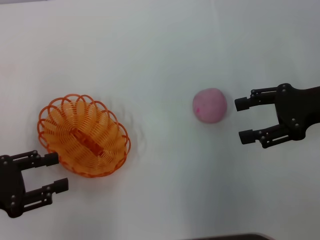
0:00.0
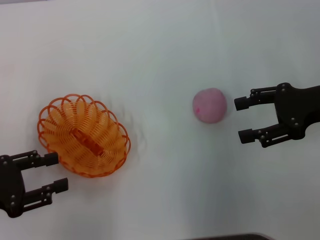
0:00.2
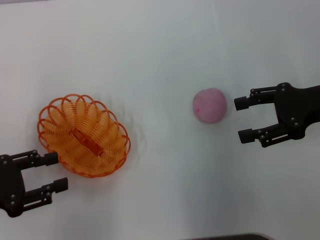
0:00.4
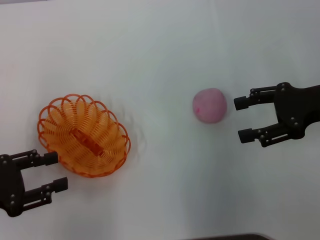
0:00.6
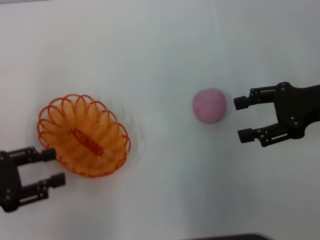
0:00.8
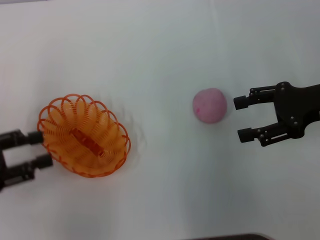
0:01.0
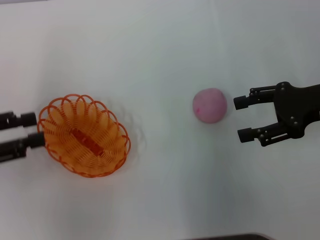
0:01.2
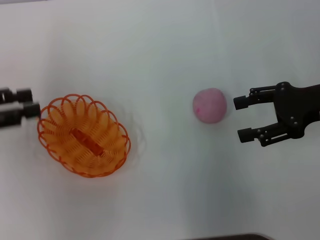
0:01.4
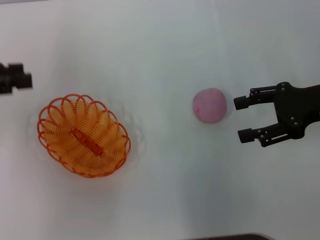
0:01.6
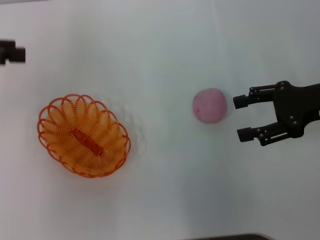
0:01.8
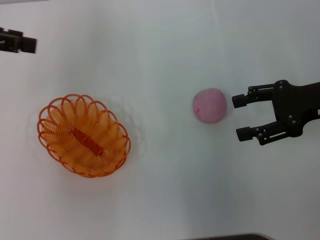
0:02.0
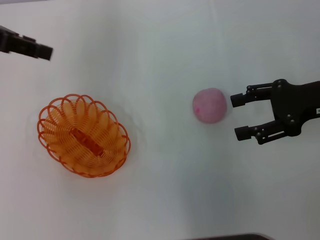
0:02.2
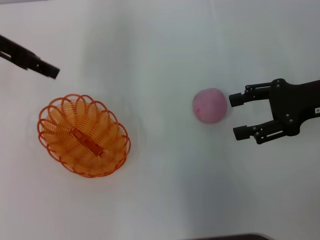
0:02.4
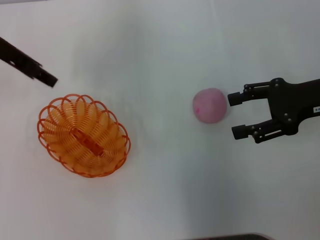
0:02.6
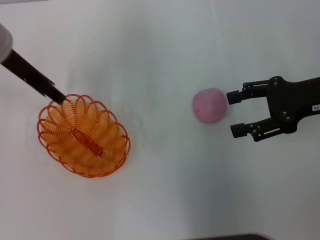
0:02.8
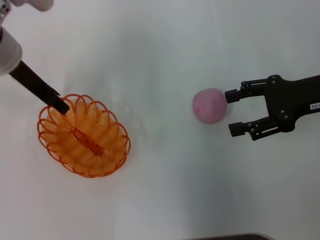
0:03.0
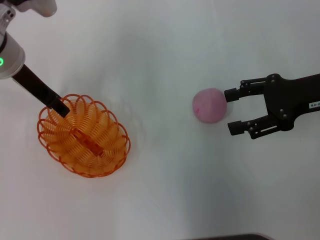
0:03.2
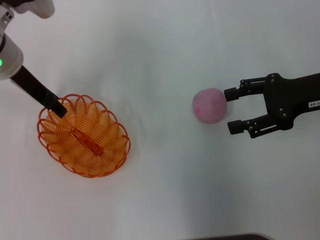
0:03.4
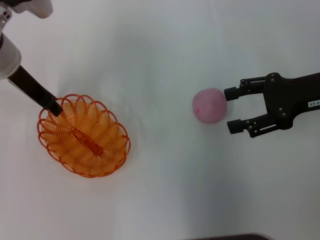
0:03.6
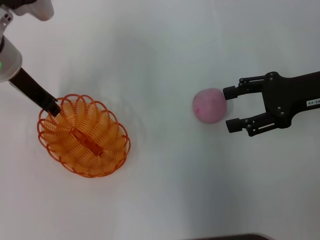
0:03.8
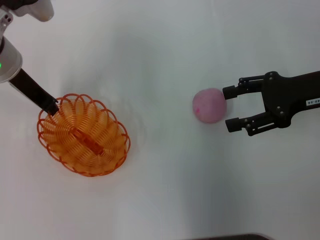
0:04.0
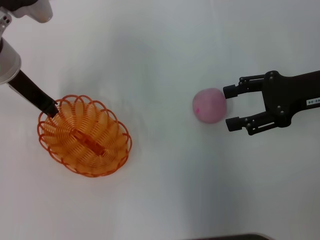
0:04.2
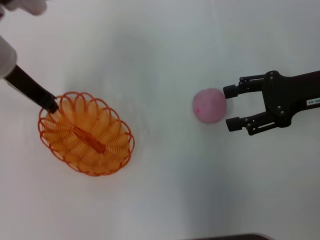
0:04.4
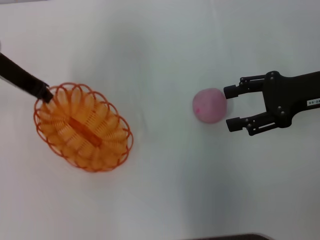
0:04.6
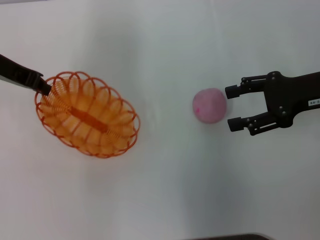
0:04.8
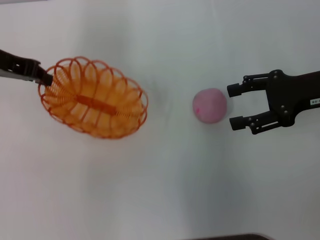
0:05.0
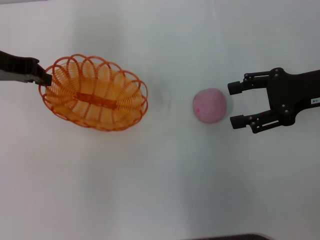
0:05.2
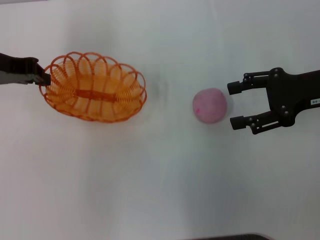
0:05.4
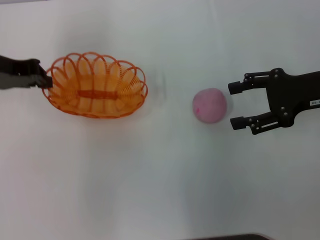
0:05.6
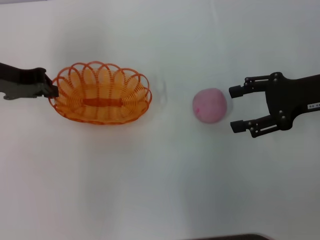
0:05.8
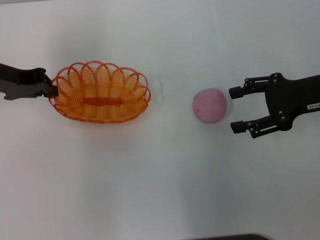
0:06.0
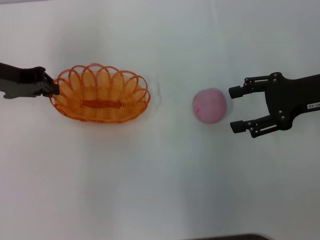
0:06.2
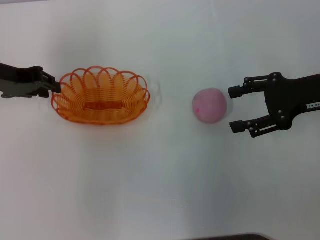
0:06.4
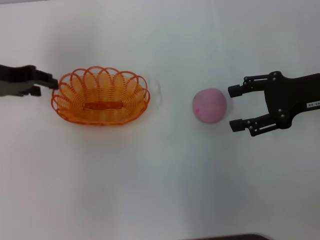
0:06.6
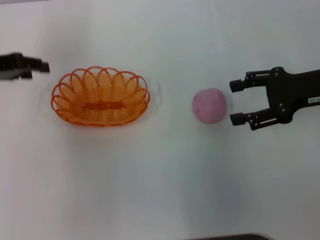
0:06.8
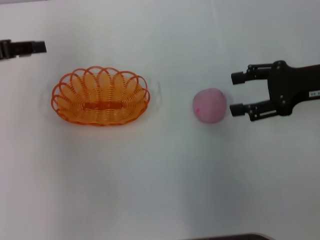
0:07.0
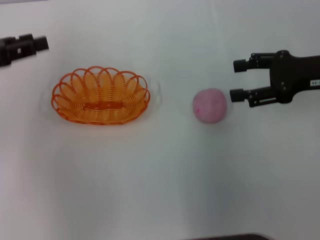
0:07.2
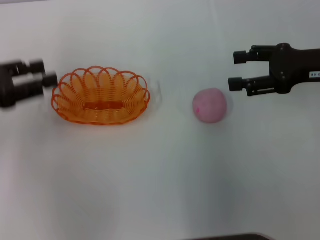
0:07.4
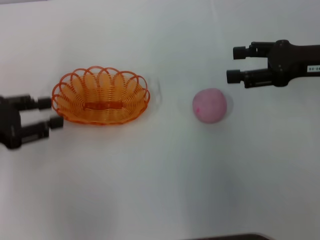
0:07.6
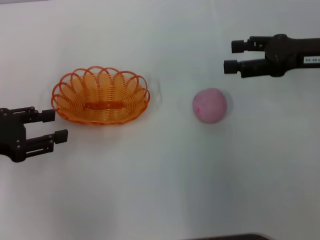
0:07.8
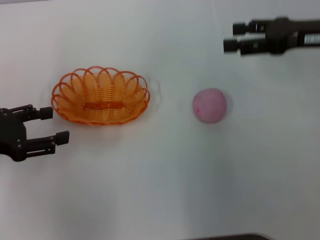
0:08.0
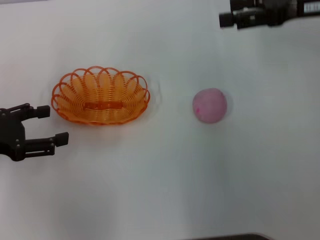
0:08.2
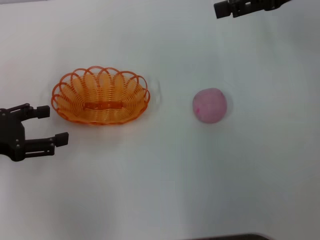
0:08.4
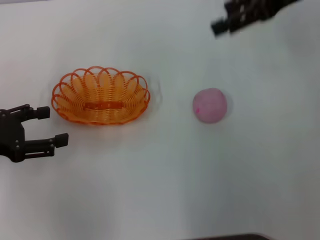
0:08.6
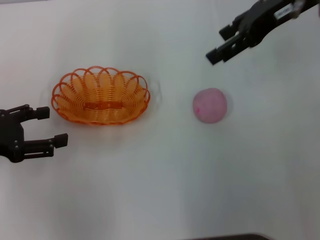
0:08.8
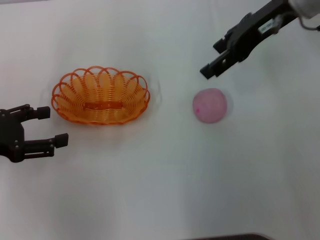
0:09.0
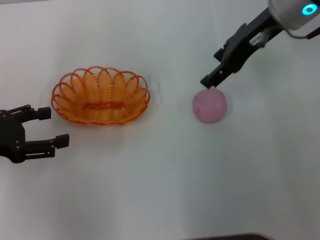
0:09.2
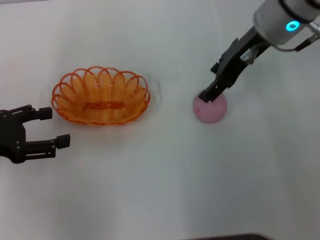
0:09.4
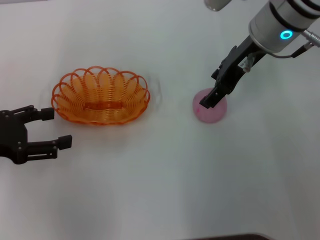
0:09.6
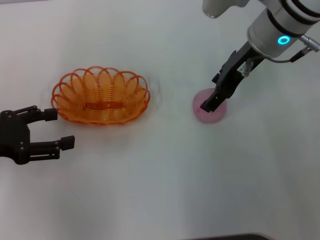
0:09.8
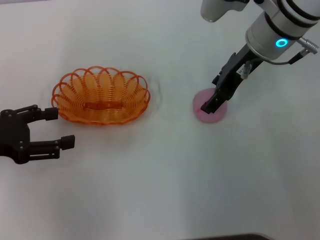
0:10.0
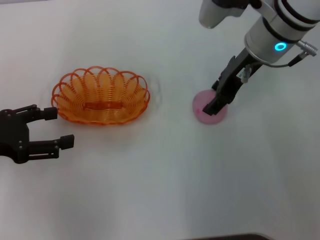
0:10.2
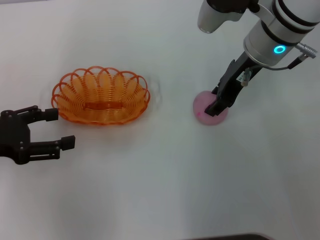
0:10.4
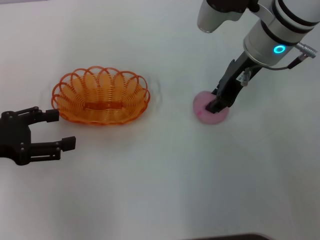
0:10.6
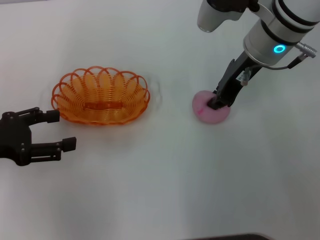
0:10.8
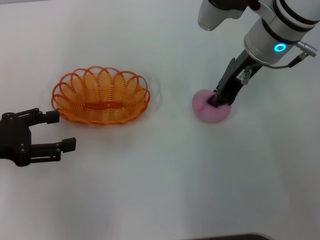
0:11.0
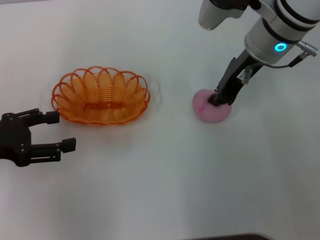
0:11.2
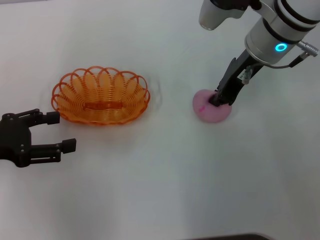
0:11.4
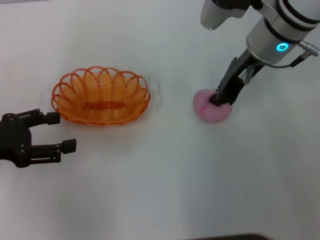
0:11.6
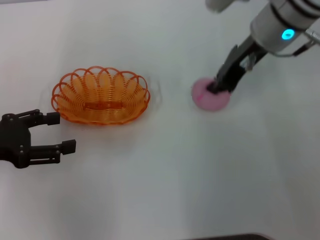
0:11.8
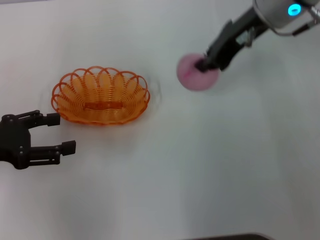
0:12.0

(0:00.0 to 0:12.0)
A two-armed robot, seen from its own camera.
Step, 0:00.0 - 0:04.8: Pick up the basket with the left gripper.
Step, 0:05.0 - 0:07.6: Place the basket in the center of view with the left gripper.
Step, 0:07.8 - 0:11.8: Pick up the peach with the right gripper.
0:00.0 - 0:01.6: The left gripper is displaced upward and forward by roughly 15 cm.
0:01.6 - 0:03.0: The left gripper travels to the right and forward by about 15 cm.
0:03.0 - 0:04.4: The left gripper closes its fingers.
0:04.4 - 0:06.0: The left gripper is displaced to the left by about 5 cm.
0:06.0 - 0:07.6: The left gripper goes roughly 10 cm backward and to the left, and opens.
0:07.6 - 0:09.0: The left gripper opens up. The right gripper shifts about 15 cm to the left, upward and forward.
0:09.0 - 0:10.4: The right gripper goes some 5 cm downward.
0:10.4 - 0:12.0: The right gripper goes approximately 5 cm upward, and closes up.

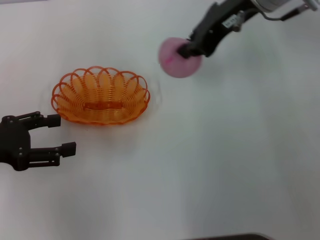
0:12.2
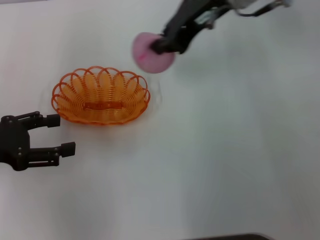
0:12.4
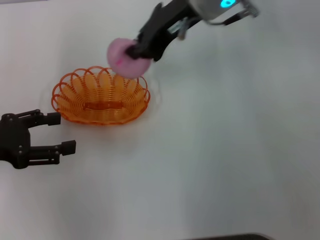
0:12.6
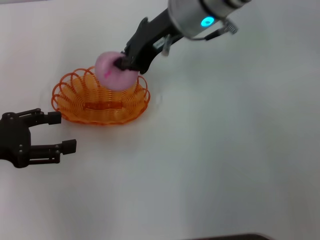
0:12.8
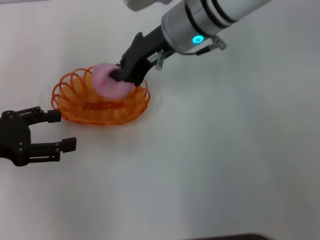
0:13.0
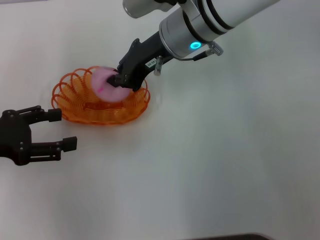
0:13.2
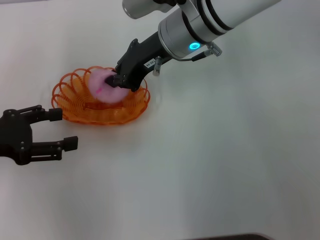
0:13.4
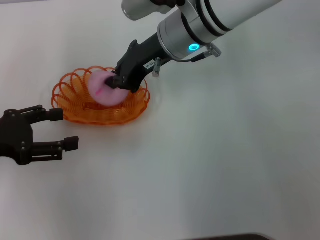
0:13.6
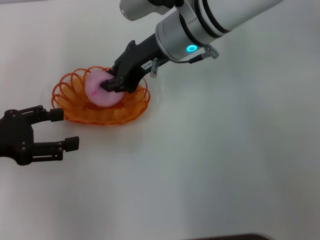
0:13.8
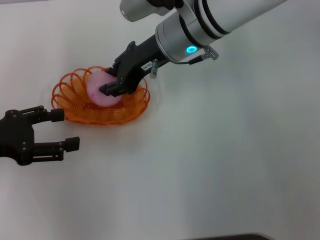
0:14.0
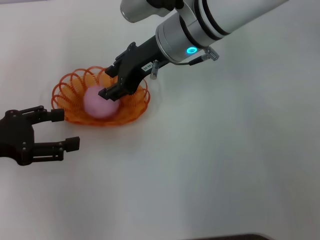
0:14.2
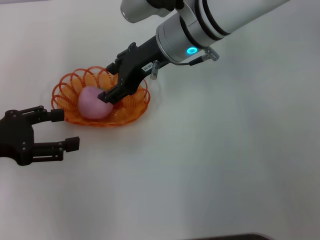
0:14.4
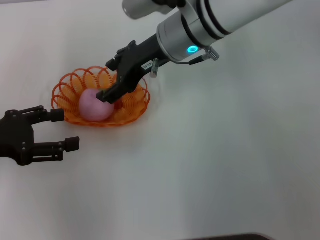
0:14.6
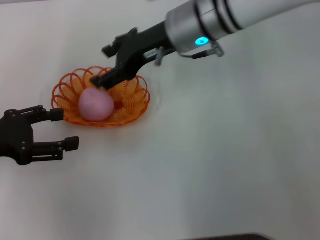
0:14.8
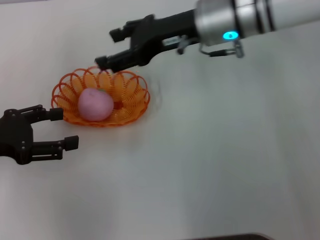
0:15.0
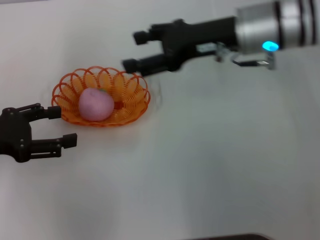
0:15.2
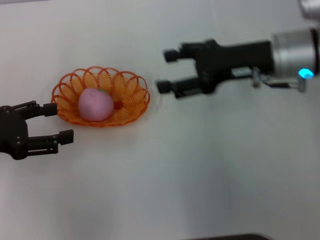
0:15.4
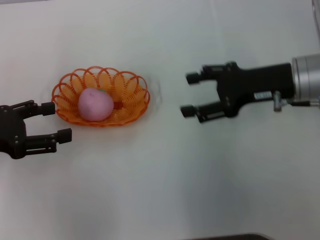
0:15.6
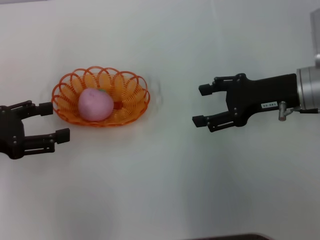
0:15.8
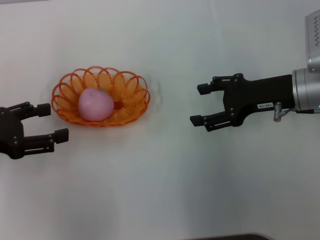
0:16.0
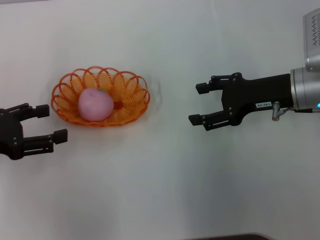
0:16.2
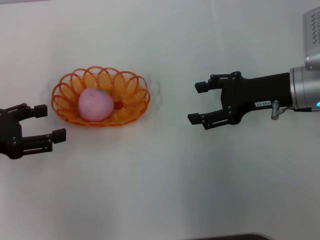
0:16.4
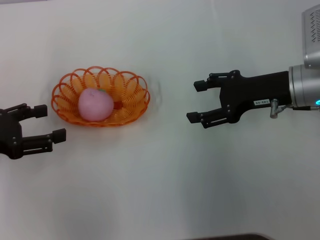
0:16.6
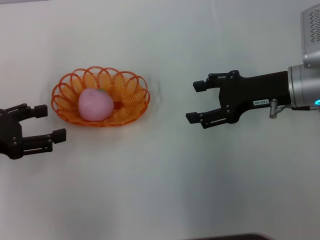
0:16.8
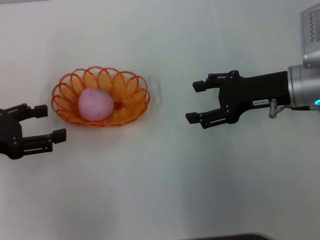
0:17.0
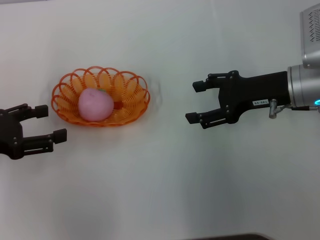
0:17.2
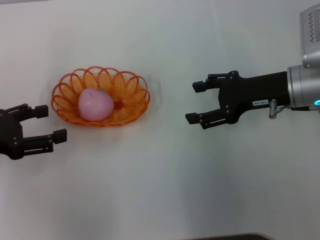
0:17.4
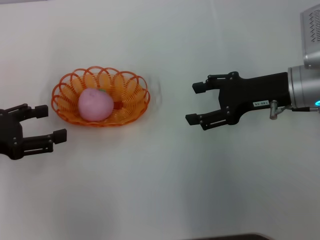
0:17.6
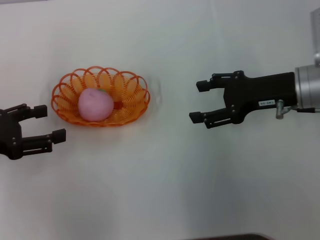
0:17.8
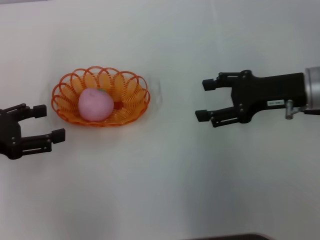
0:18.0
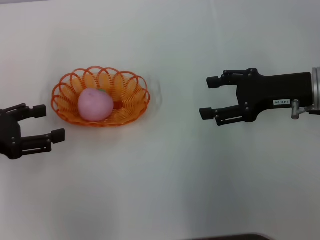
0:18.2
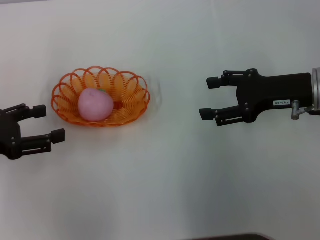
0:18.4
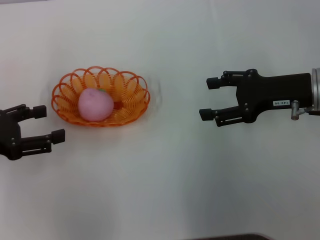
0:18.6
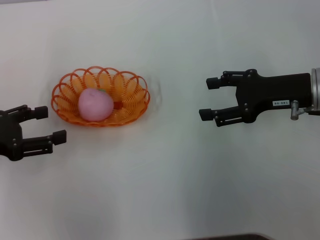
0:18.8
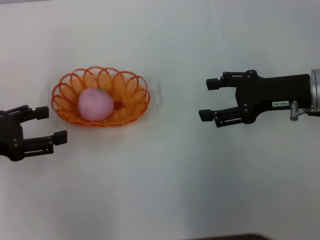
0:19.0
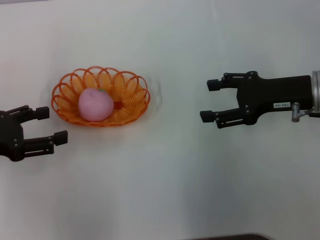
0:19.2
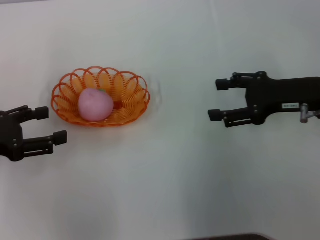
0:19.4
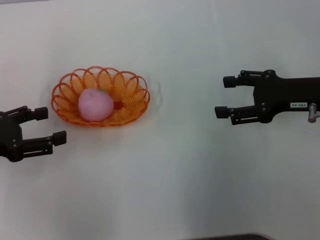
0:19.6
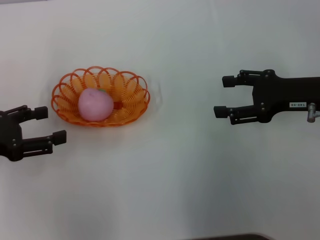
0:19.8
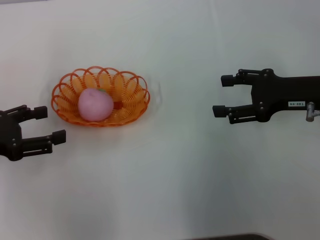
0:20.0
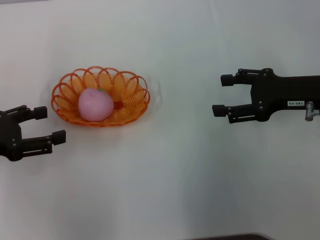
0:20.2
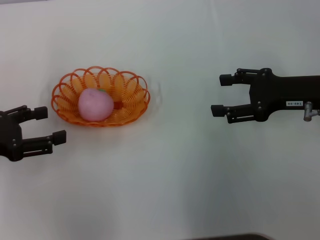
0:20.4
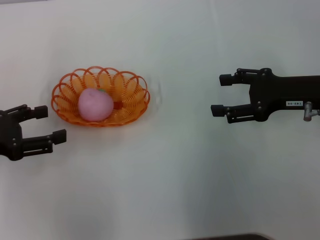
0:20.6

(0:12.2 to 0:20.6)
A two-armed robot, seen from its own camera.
Step, 0:12.2 - 0:15.2: Place the peach into the basket with the right gripper.
0:12.2 - 0:13.6: The right gripper is displaced to the left and downward by approximately 10 cm.
0:13.6 - 0:15.0: The right gripper shifts some 5 cm to the right, and opens.
0:15.0 - 0:16.4: The right gripper goes some 15 cm to the right, downward and backward.
0:16.4 - 0:17.8: Both grippers stay put.
0:17.8 - 0:20.6: There are only small adjustments of the grippers.

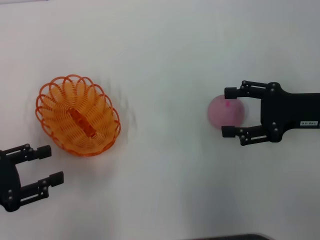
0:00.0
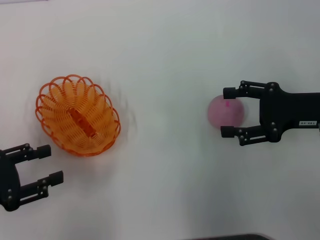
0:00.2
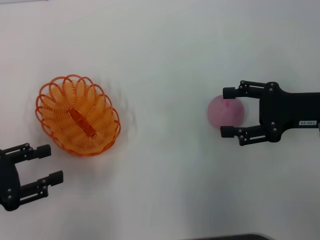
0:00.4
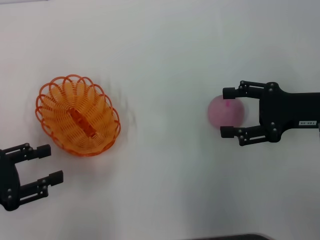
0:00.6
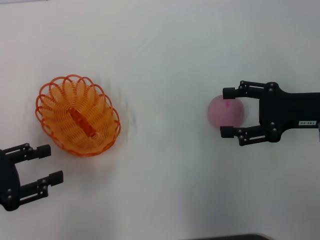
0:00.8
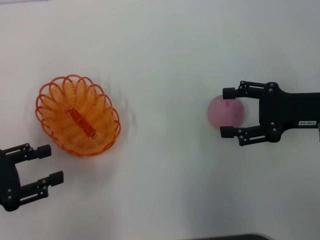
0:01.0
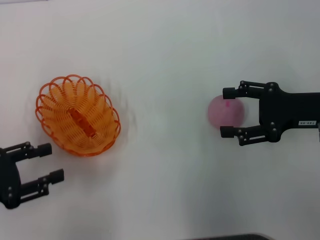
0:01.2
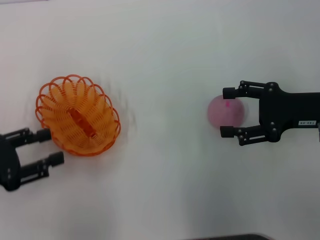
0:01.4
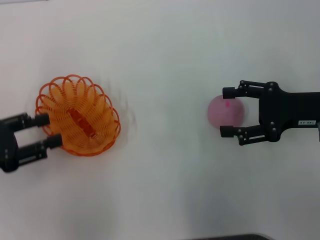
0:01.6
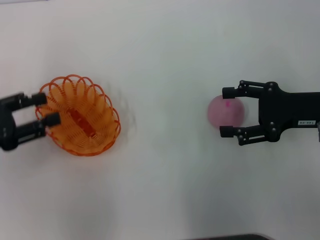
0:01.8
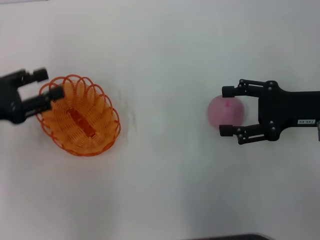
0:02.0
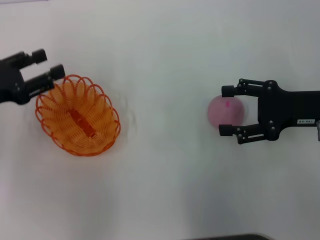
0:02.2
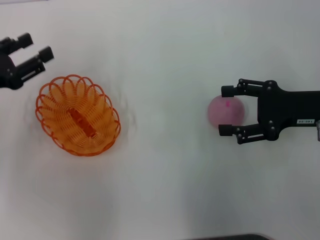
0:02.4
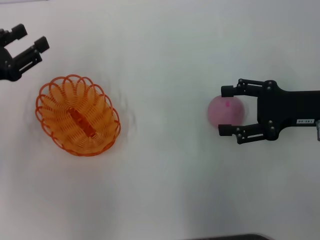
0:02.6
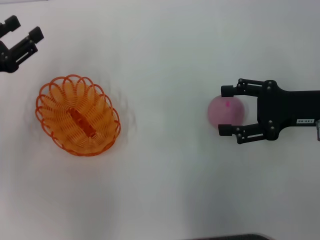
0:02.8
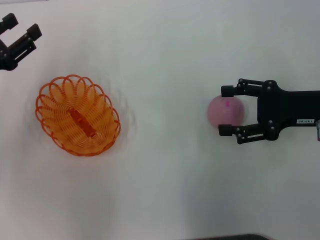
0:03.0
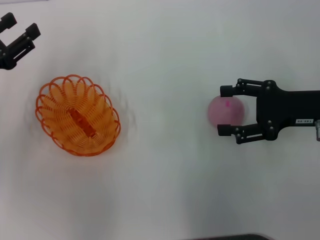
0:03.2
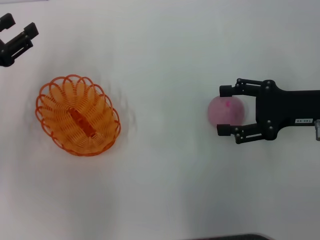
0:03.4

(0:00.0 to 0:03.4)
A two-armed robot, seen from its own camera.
0:00.0 - 0:01.6: The grippers stay close to where they were, moving slightly.
0:01.6 - 0:03.4: The left gripper moves forward, roughly 10 cm.
